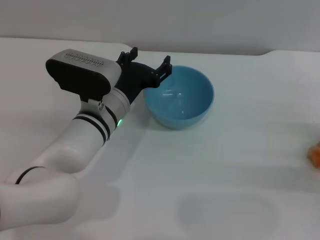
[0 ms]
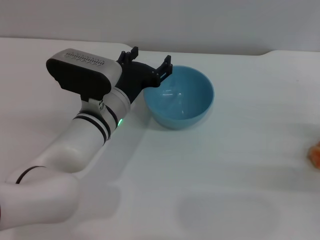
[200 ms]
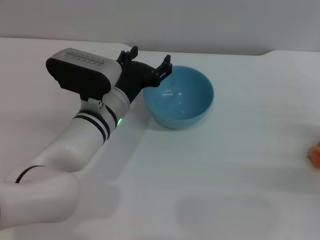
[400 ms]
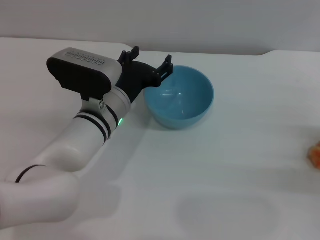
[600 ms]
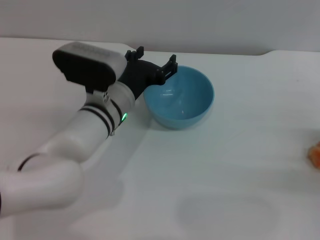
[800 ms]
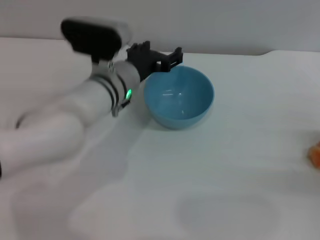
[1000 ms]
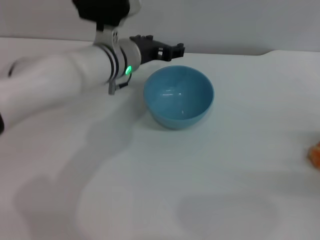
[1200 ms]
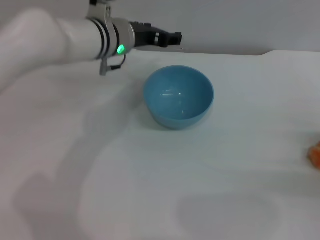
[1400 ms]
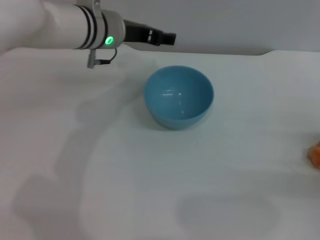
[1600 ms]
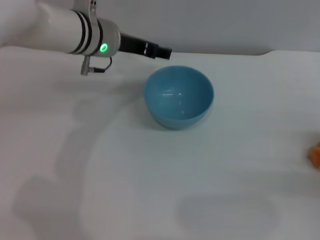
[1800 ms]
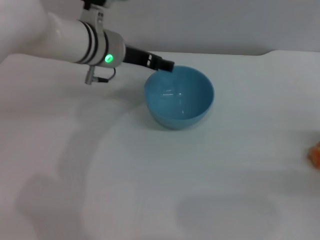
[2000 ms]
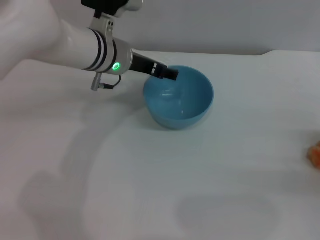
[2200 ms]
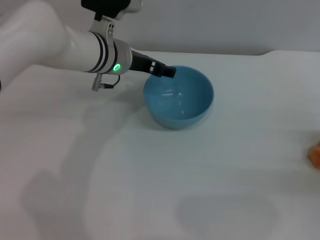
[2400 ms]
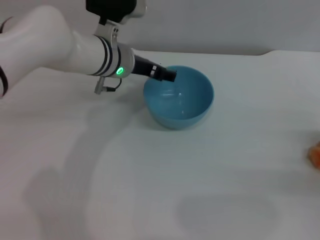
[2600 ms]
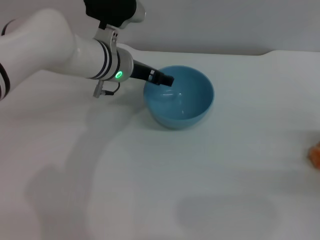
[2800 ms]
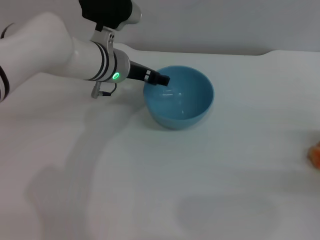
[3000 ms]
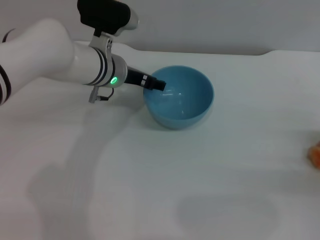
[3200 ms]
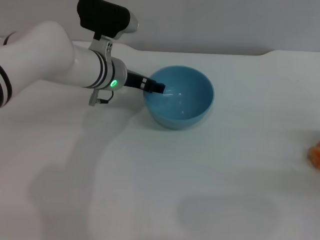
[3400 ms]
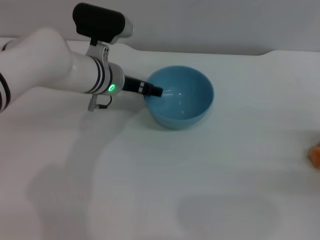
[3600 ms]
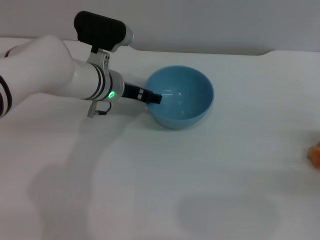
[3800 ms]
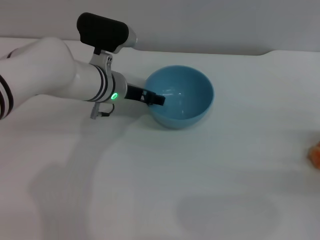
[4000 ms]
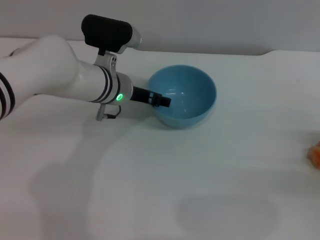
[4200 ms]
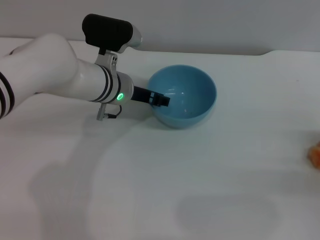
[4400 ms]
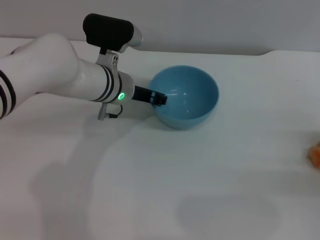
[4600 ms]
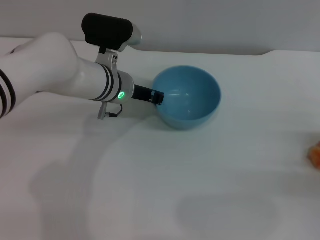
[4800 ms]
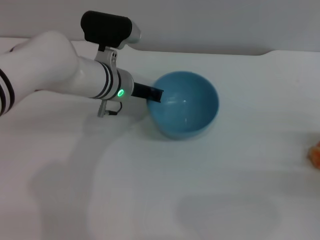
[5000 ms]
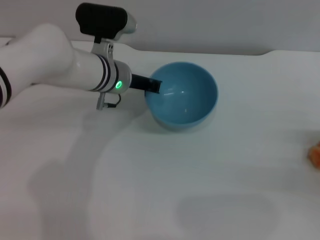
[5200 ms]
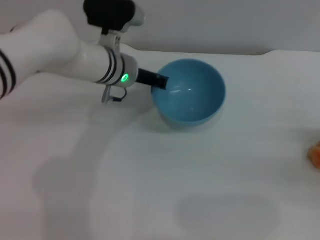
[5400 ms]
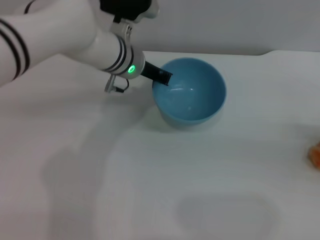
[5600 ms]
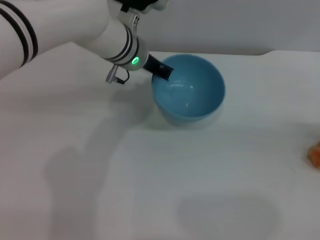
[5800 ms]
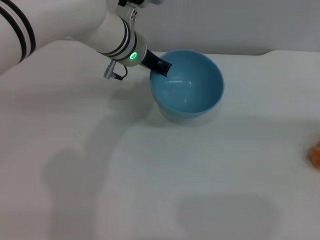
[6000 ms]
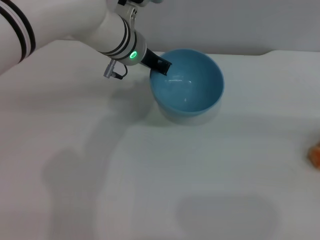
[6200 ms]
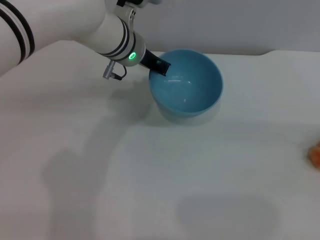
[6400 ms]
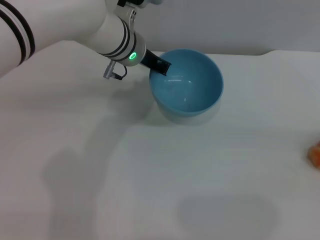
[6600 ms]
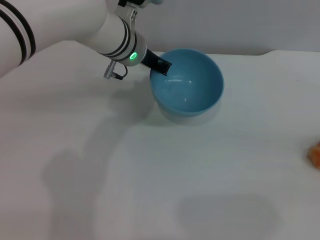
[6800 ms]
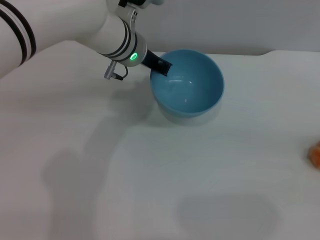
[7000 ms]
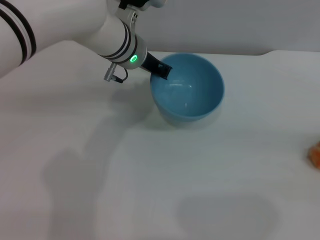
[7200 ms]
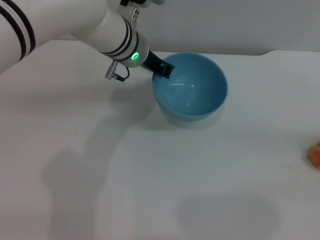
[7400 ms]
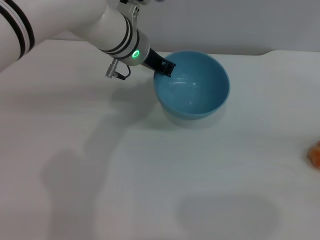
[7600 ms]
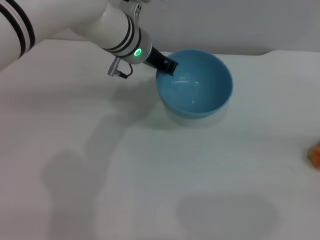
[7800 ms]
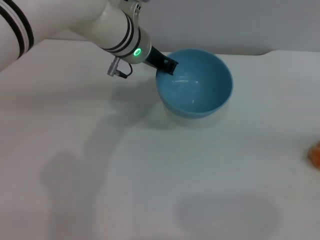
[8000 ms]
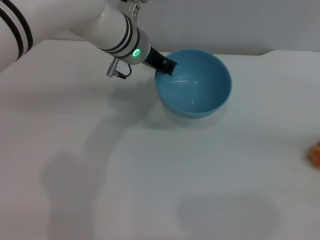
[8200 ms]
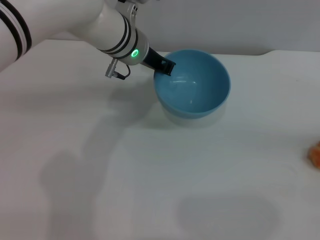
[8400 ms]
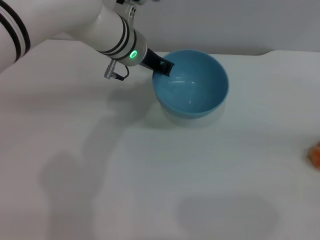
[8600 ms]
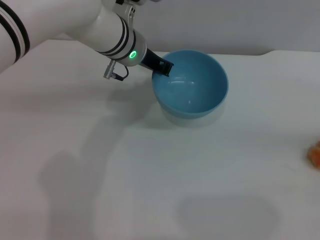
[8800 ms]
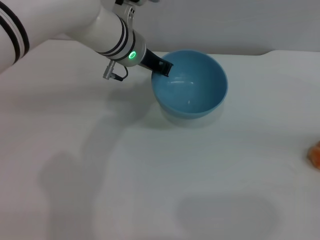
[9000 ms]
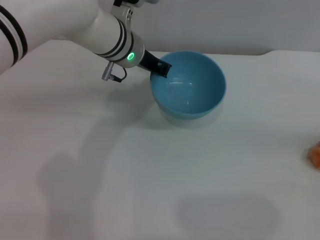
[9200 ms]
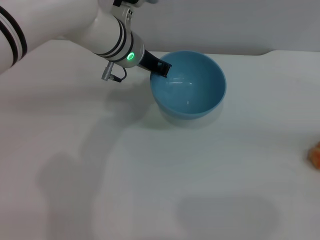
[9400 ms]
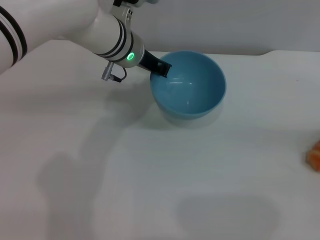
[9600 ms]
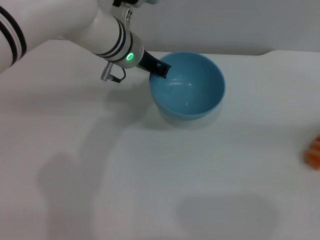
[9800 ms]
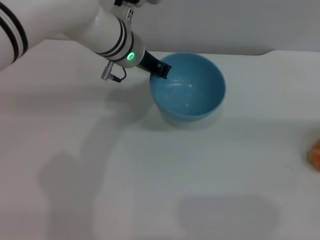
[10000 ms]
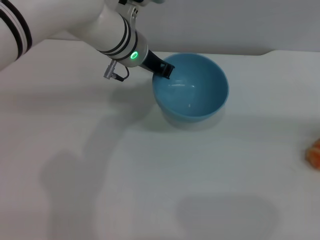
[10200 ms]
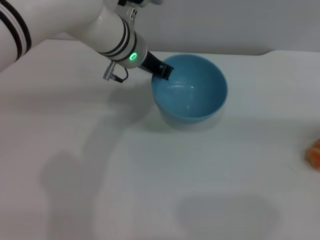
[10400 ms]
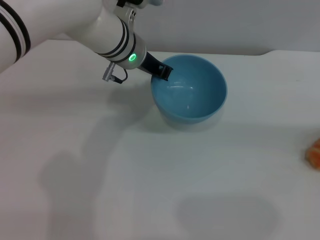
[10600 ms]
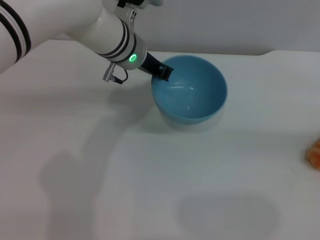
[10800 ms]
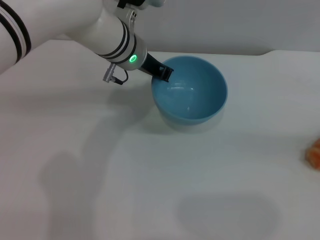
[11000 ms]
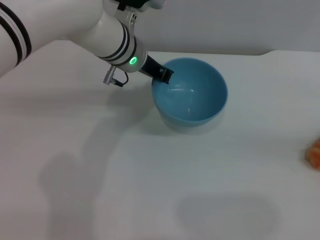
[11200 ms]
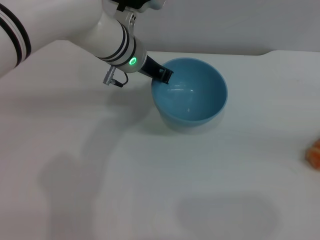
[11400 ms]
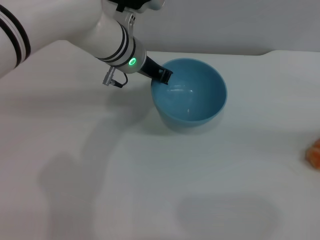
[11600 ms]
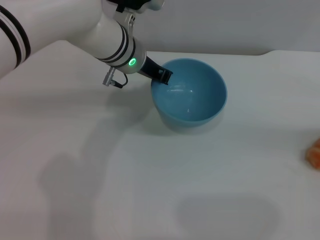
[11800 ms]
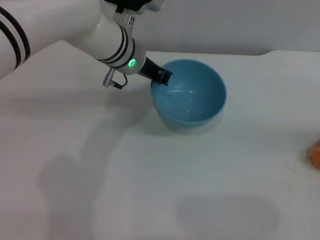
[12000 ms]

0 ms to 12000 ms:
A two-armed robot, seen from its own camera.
Task of the whole recording: put the bread into the blue bowl and pour it out repeatedly.
Step, 0 ms to 6200 ms: Pick up the bowl with the left gripper.
0 ms to 1600 ms: The left gripper is displaced upward and forward by roughly 15 cm.
1600 ms to 3000 ms: The left gripper moves downward, about 5 cm.
3000 ms to 4400 ms: There are only small adjustments of the grippers.
4400 ms to 6000 ms: The left gripper heads upward, covering roughly 5 cm, and closes its fingers, while the right gripper goes some 15 cm upward, to the right and forward.
6000 ms to 7600 ms: The right gripper is displaced downward by about 5 cm.
7600 ms to 9000 ms: The grippers make only small movements.
9000 ms to 10400 ms: The right gripper moves upward, roughly 5 cm, and closes up.
10400 ms to 12000 ms: The right gripper travels downward by about 5 cm, and opens.

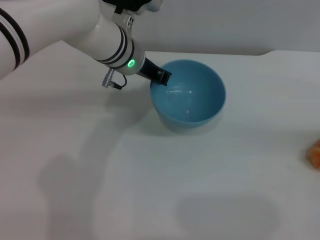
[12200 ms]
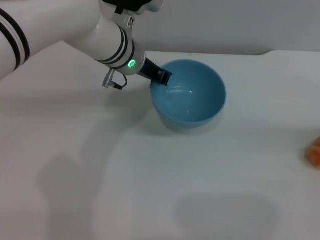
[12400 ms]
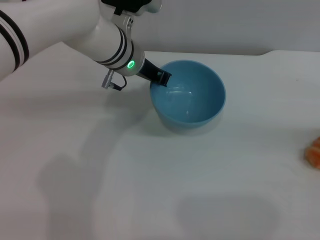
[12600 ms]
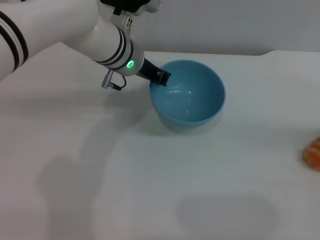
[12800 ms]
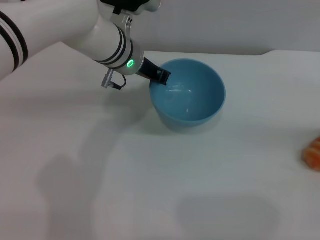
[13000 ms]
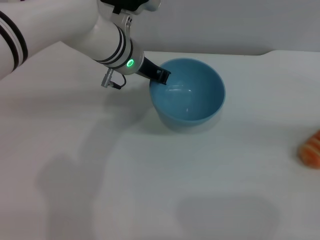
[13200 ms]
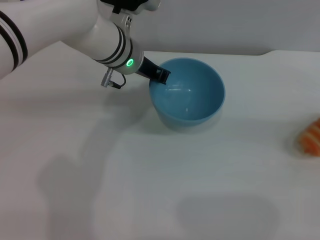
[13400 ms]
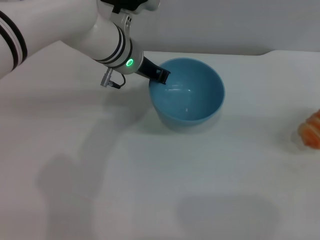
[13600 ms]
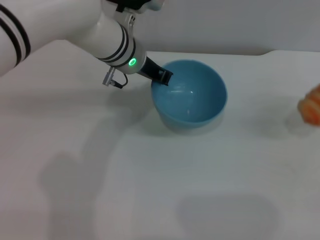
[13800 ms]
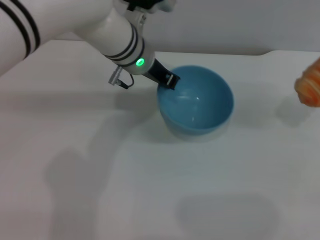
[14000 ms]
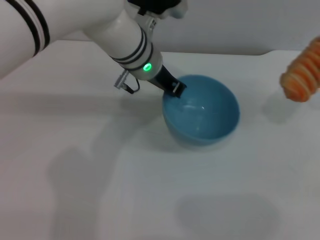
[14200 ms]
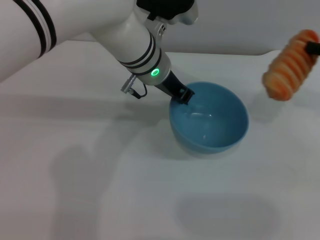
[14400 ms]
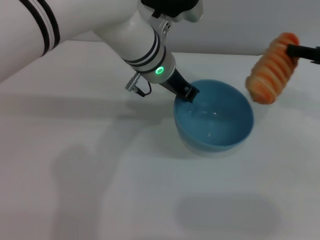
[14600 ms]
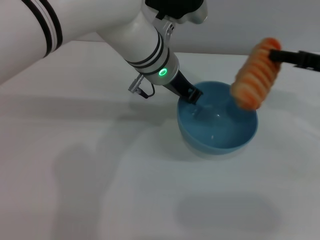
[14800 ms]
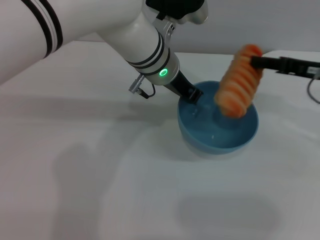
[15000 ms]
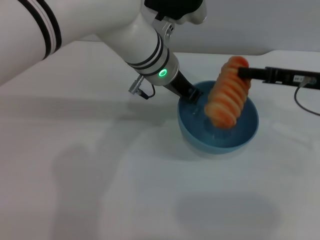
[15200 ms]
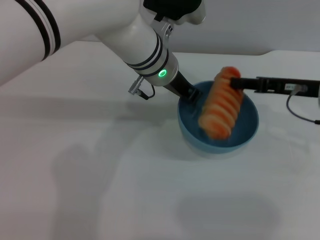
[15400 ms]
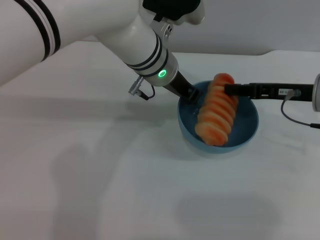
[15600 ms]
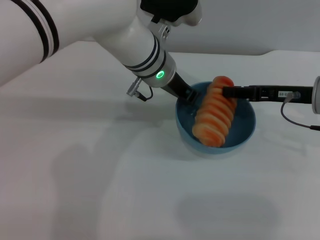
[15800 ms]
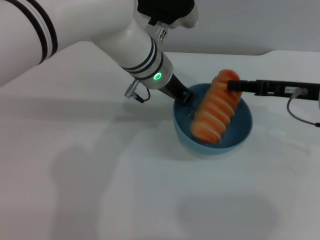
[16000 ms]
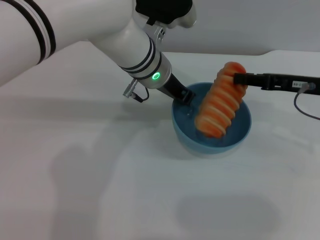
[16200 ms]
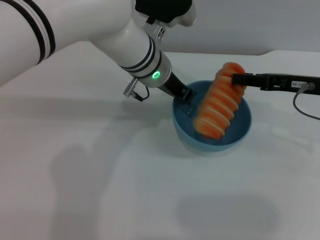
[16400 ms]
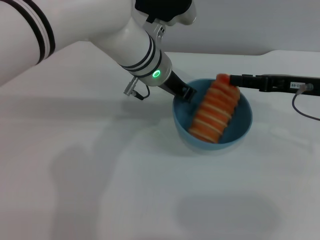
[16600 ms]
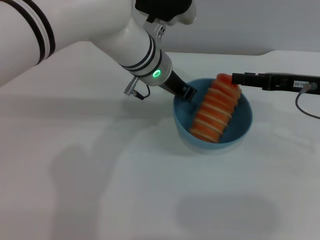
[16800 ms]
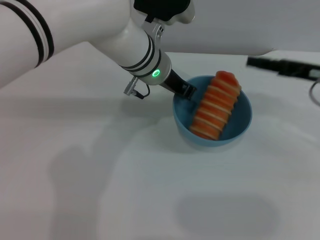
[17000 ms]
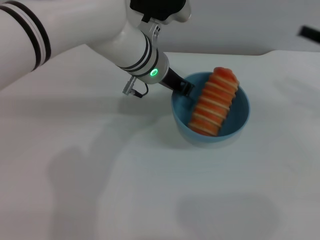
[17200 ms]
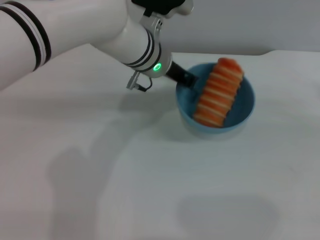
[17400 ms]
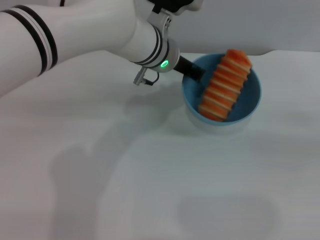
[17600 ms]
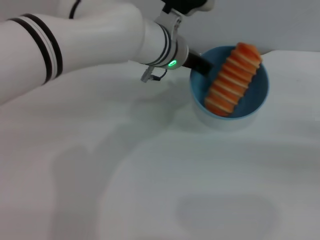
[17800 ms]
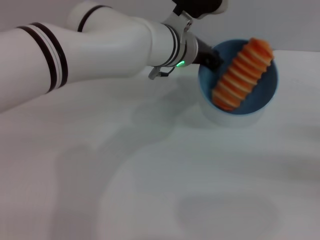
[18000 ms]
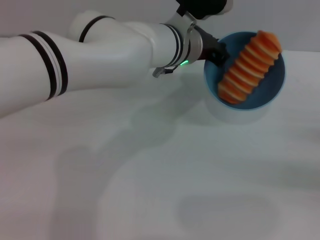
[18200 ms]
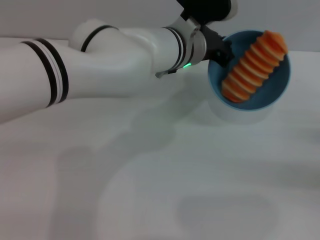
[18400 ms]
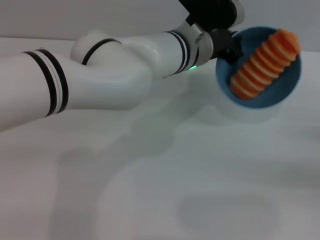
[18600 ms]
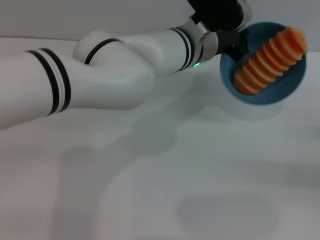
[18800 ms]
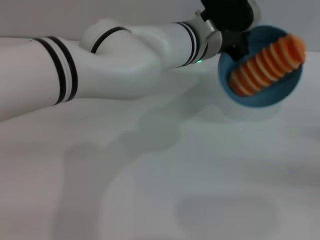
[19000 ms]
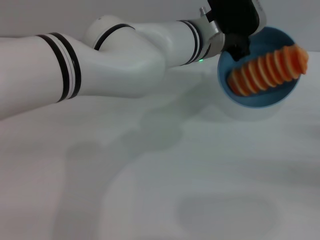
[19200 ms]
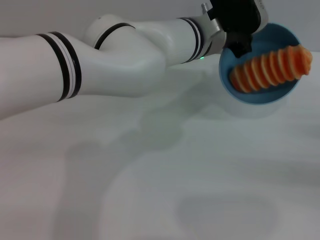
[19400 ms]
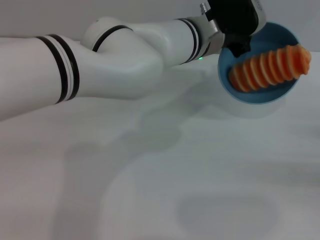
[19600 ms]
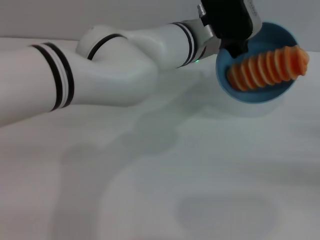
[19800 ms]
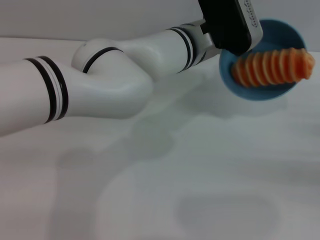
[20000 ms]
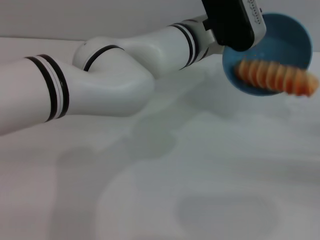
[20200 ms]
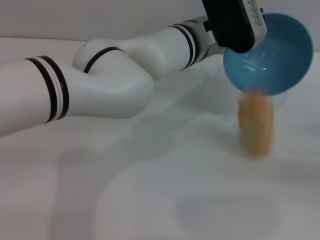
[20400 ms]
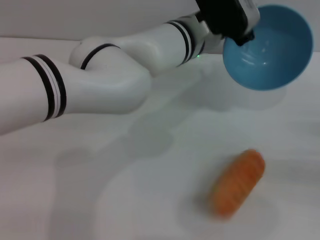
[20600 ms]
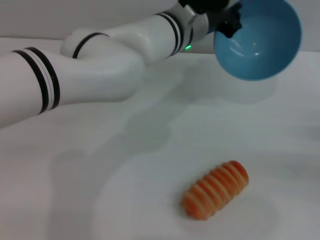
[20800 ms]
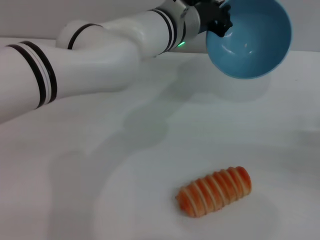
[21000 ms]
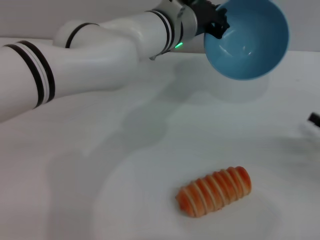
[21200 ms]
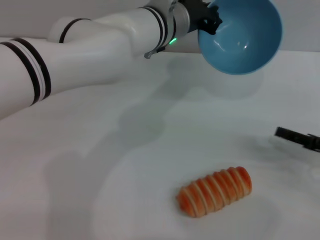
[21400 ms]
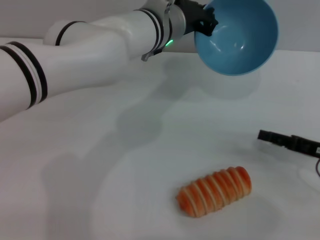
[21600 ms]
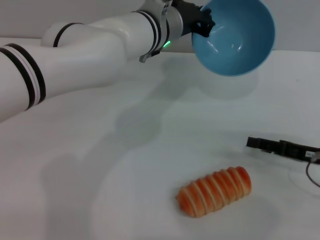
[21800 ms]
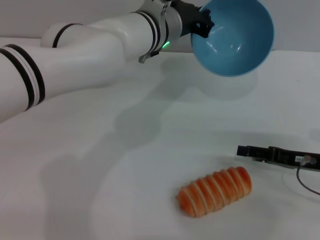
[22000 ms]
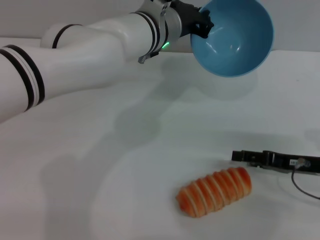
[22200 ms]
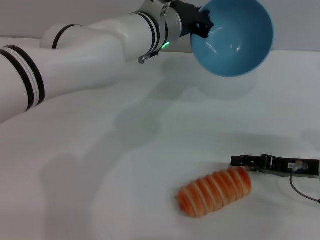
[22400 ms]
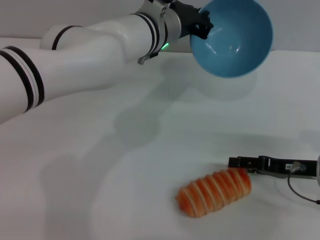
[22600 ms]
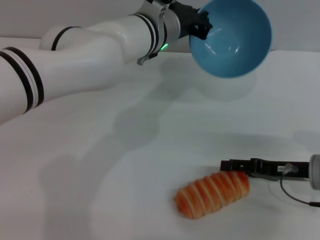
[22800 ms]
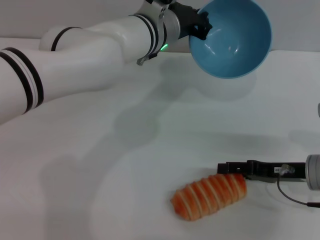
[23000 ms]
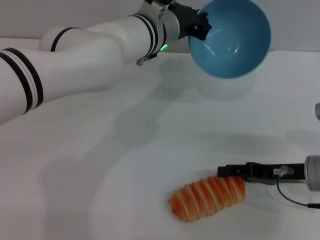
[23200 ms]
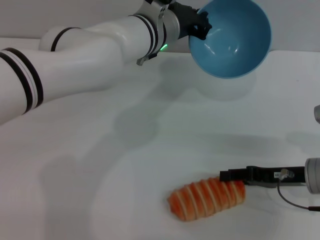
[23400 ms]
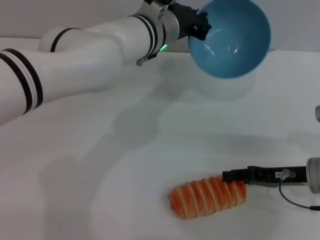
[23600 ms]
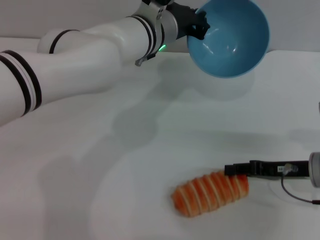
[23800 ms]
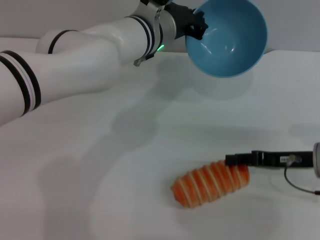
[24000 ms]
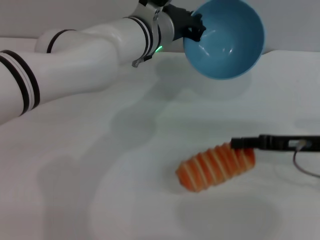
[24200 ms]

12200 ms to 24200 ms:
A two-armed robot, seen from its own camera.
Task of the whole recording: put the bread into the blue bowl and pour it out repeatedly.
Step, 14000 ms to 17400 ms: Place the bread into the bowl.
Step, 17600 ms to 20600 ms: Pour the bread out of the bowl.
12200 ms to 13800 ms: The right gripper moves upward, roughly 5 cm, and closes up.
13800 ms to 15200 ms: The right gripper moves to the left, about 15 cm; the left gripper moves roughly 5 cm.
15200 ms to 16600 ms: The grippers stay close to where they were, moving slightly.
16600 ms to 18200 ms: The right gripper shifts about 20 cm to the right, backward and downward.
21200 ms to 22600 ms: The right gripper shifts some 10 cm to the left.
22600 ms to 24200 ms: The right gripper closes its fingers.
